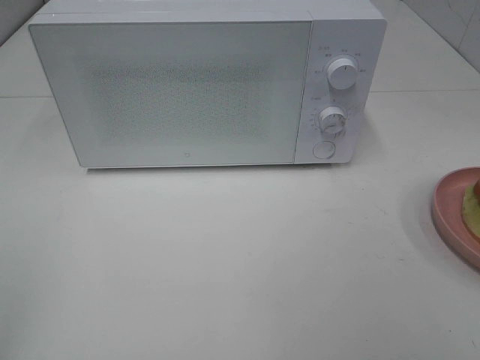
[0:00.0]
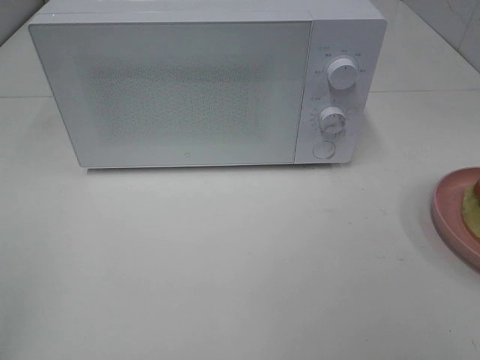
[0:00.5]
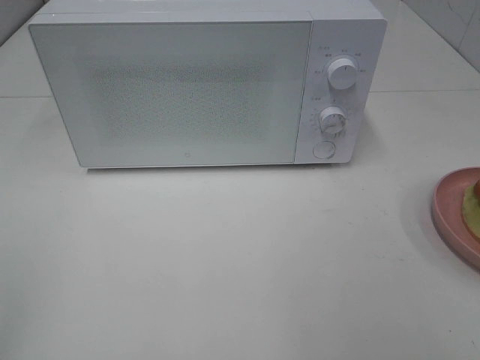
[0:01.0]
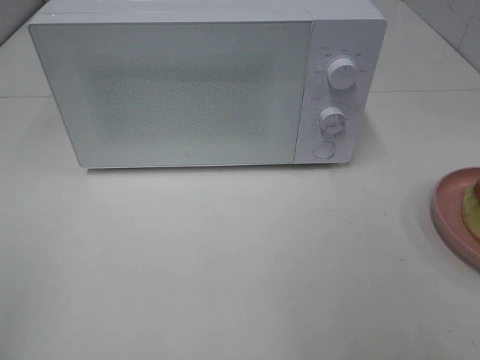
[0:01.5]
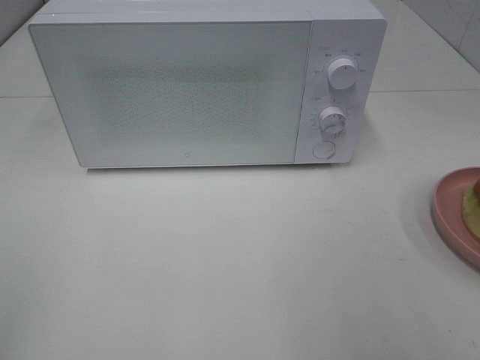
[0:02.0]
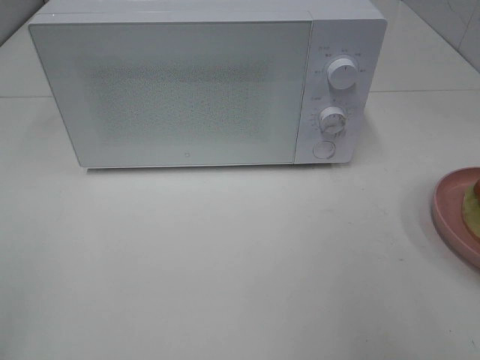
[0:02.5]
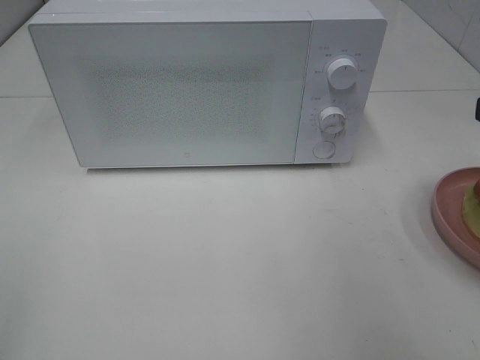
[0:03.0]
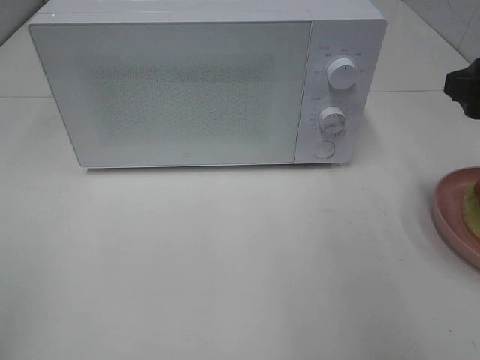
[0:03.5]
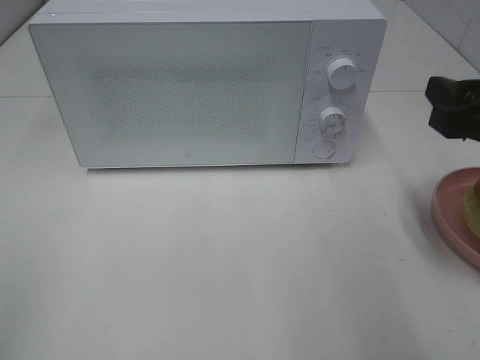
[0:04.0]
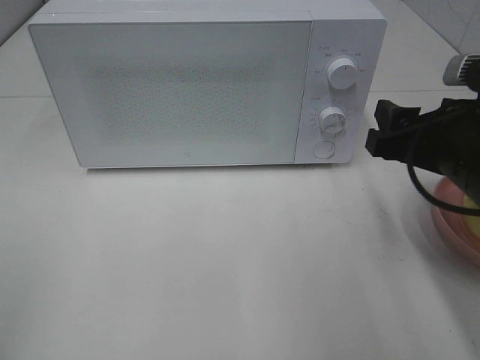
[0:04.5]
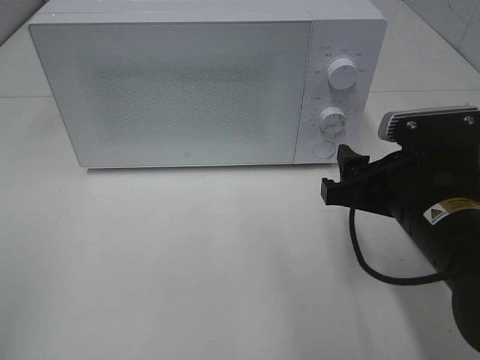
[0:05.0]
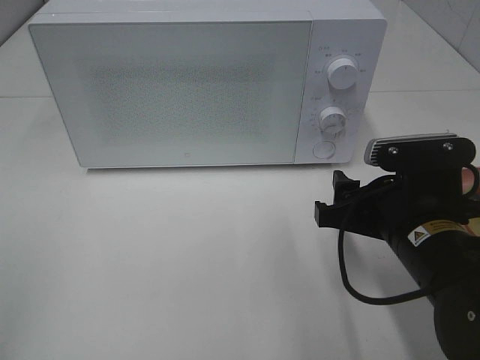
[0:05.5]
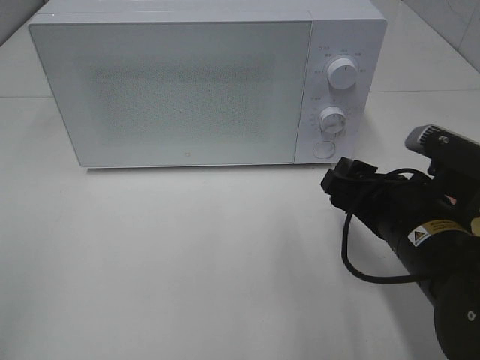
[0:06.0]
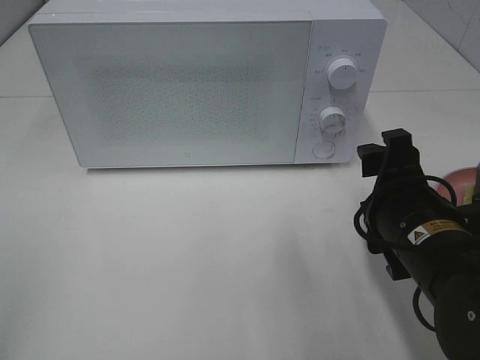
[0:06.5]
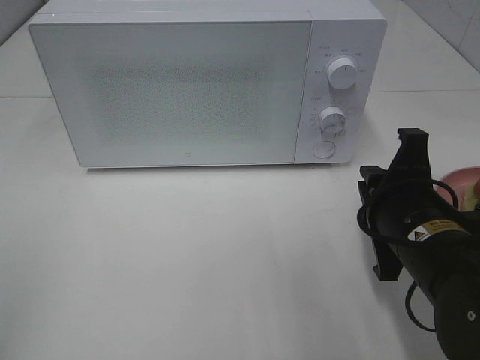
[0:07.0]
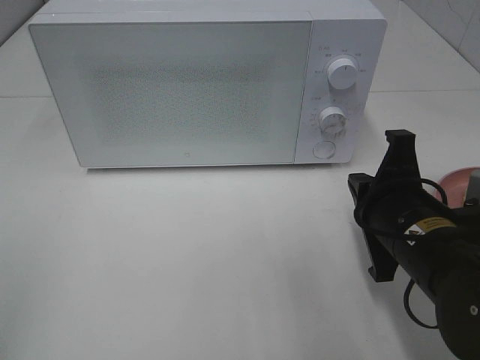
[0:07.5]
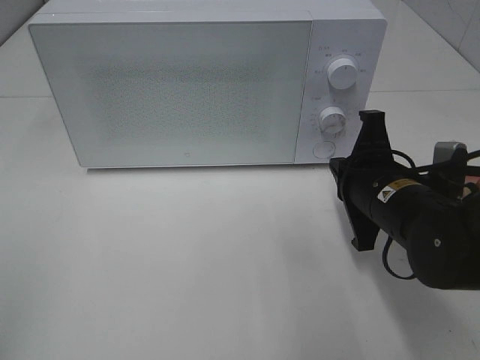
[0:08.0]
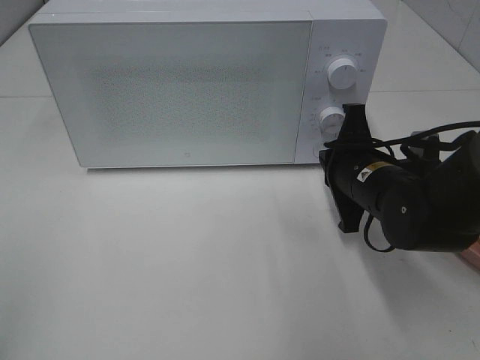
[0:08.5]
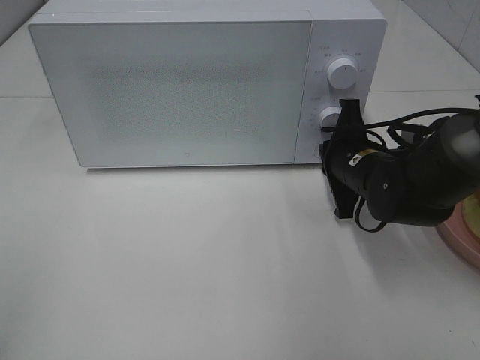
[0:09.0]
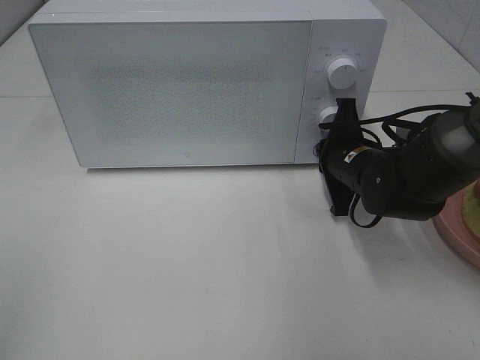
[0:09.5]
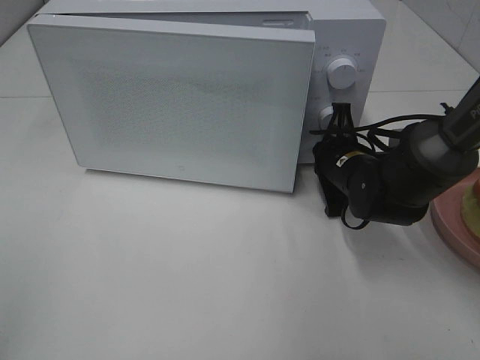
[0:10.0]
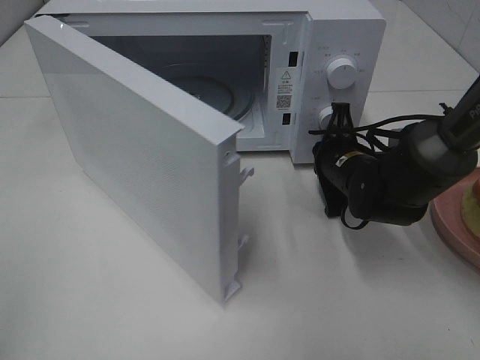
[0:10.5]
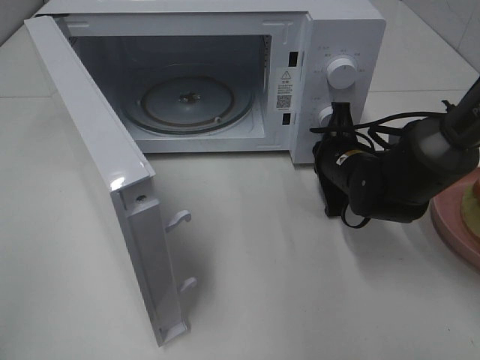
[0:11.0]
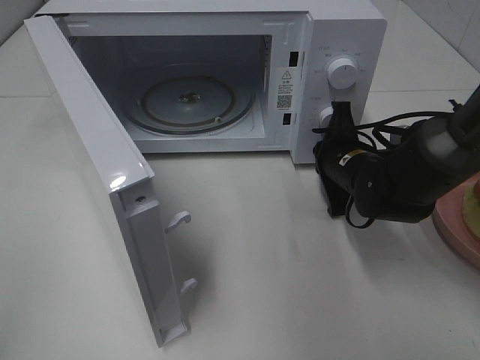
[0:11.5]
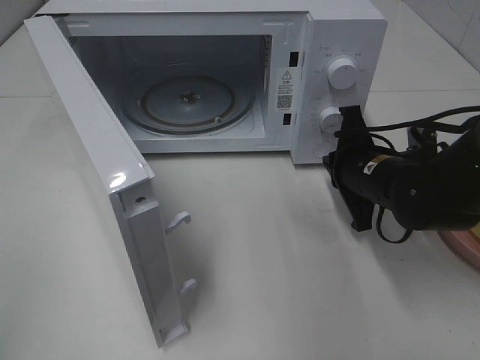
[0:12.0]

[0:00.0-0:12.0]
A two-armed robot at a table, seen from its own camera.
Task of the whole recording: Heat Sandwich.
Step, 0.0 to 11.5 s: Right hand: press the switch.
2.0 to 4.0 s: The right gripper is displaced forward and downward by about 15 cm.
4.0 to 6.0 s: The right gripper heads to the left and downward, covering some 15 cm.
6.0 to 8.0 s: The right gripper travels forward by some 5 cm, and closes its fingers.
8.0 to 10.0 s: The right gripper shifts roughly 10 cm forward.
10.0 to 12.0 s: The right gripper ends up some 5 cm from where it was.

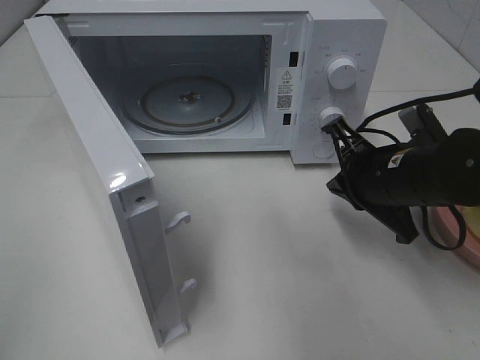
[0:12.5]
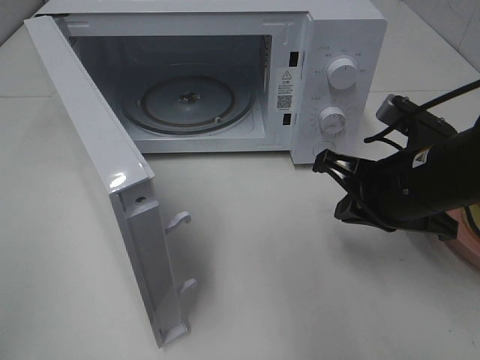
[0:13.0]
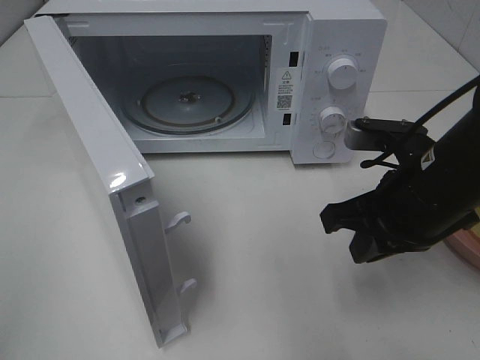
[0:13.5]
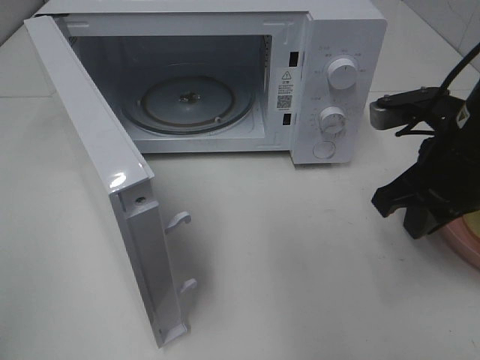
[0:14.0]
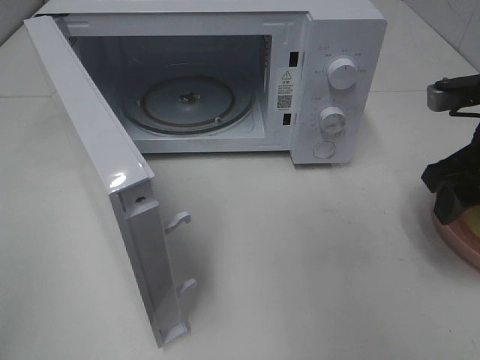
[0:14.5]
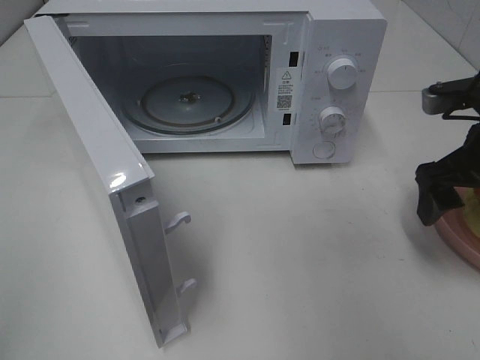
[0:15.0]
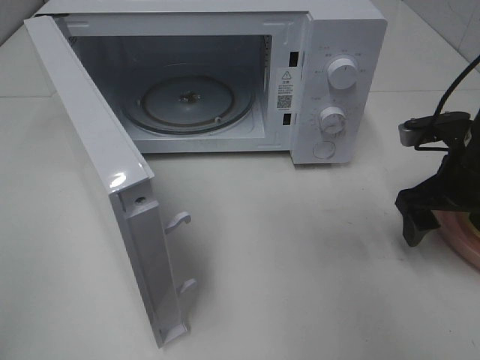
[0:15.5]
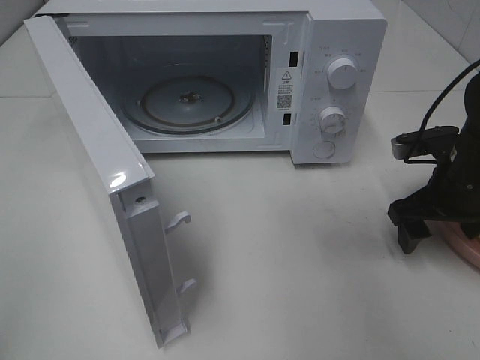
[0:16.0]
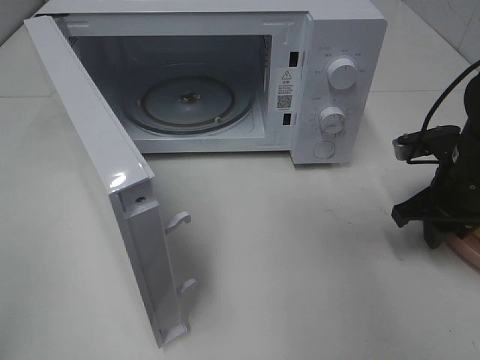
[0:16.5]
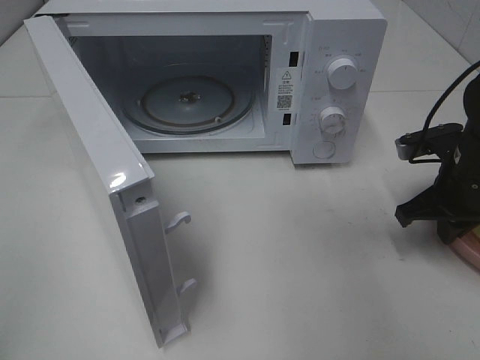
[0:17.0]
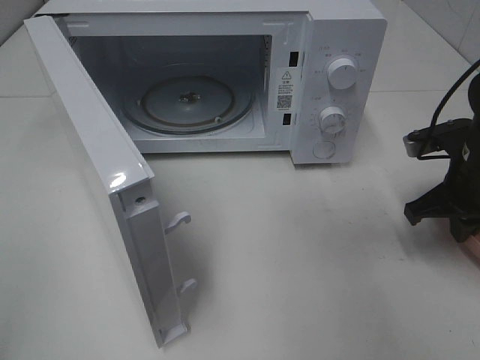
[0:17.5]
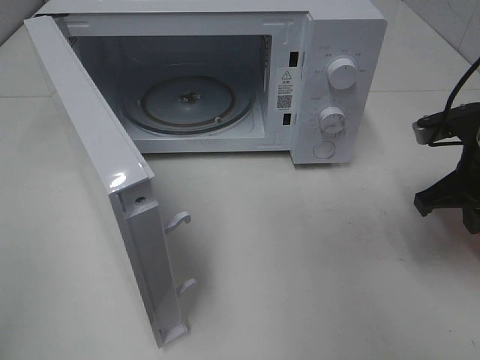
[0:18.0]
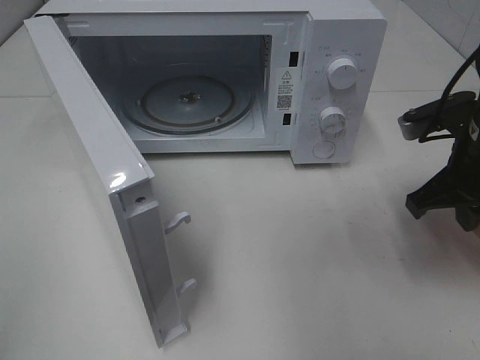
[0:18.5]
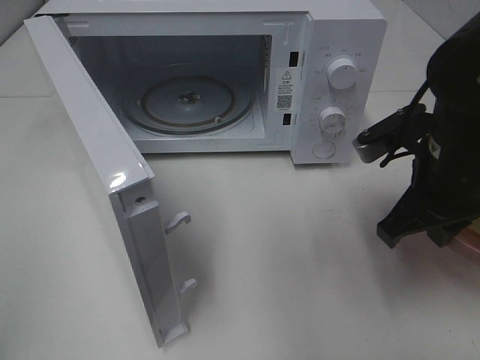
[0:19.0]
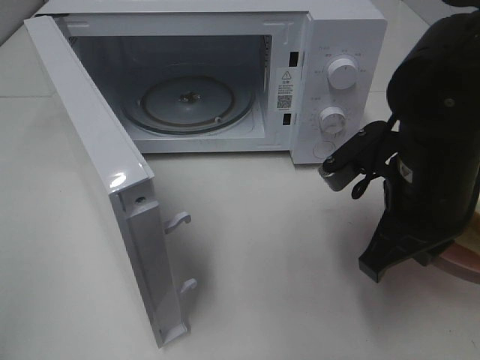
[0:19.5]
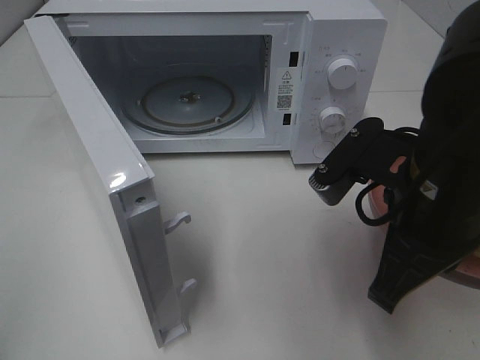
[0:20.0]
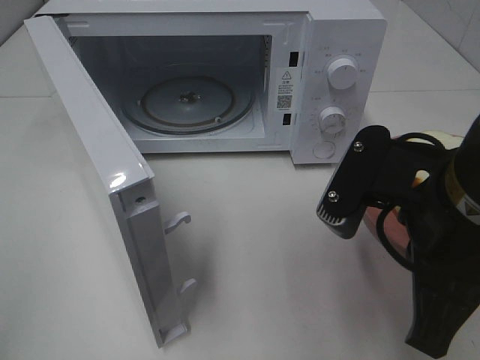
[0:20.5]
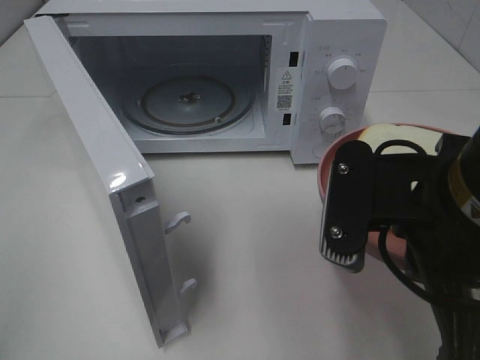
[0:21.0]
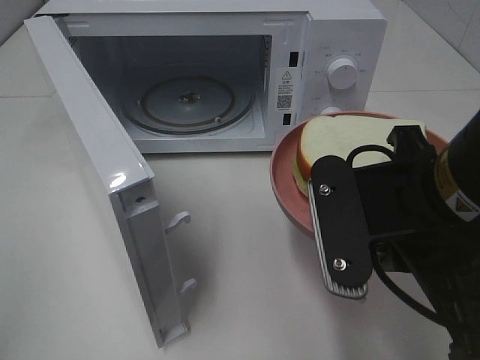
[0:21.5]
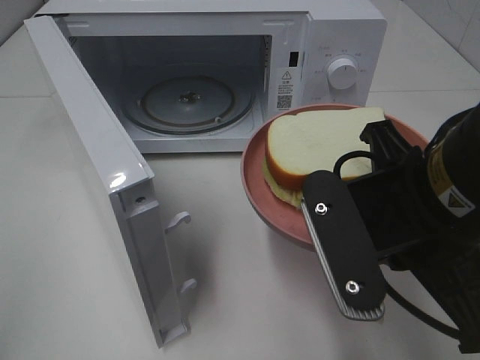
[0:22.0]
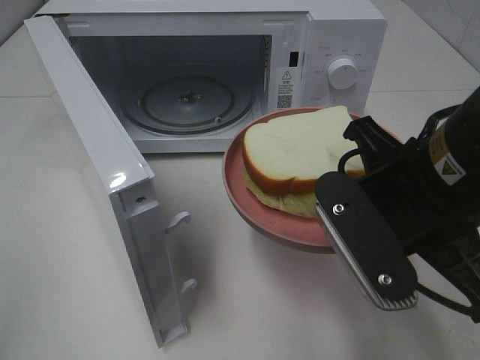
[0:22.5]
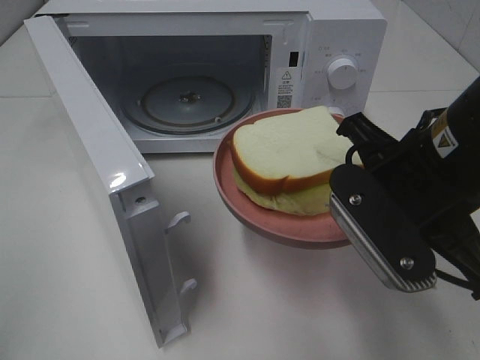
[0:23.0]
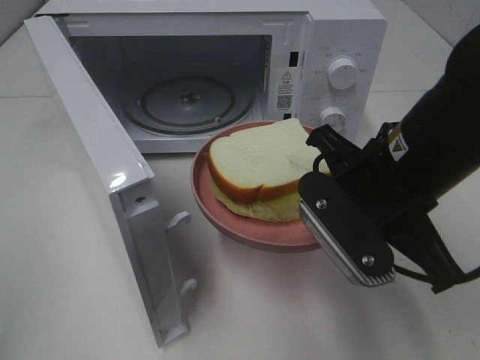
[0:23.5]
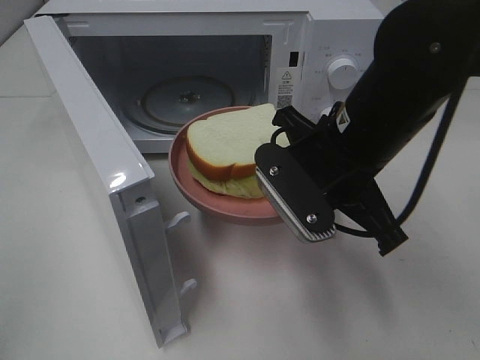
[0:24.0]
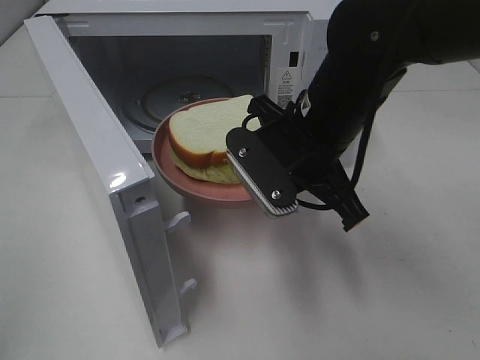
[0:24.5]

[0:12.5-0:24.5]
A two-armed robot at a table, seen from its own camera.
Task of the whole recording: Heat Sandwich.
Step, 12.5 to 17.0 s: Right hand: grab the plate with the sandwich.
12.5 to 14.5 s: The right gripper travels to the right and upward by some 10 cm, and opens.
14.5 to 16.5 s: The right gripper moves downward, approximately 10 cm, and closes its fingers.
16.5 to 18.5 s: The right gripper goes approximately 5 cm upward.
18.5 to 20.5 s: The right gripper goes some 15 cm backward and to the left.
22.5 to 24.5 s: The right gripper goes some 10 cm forward and to the left.

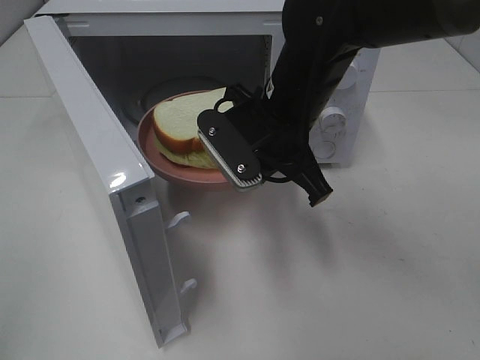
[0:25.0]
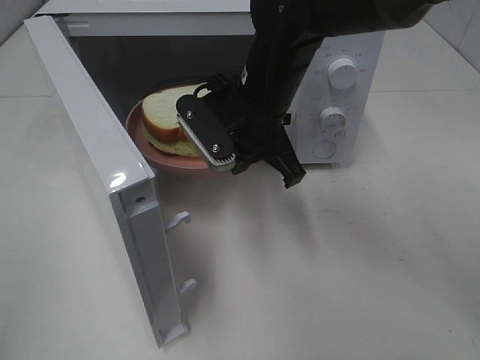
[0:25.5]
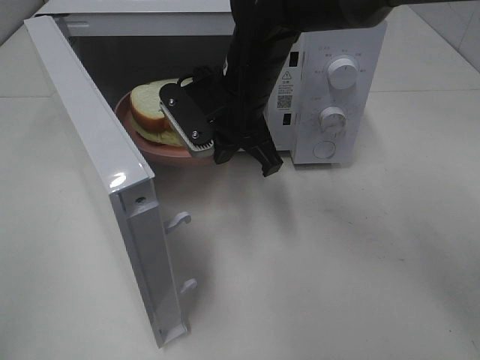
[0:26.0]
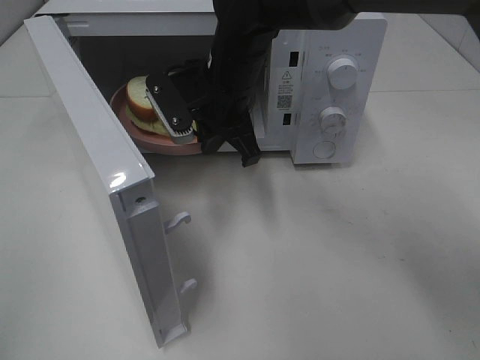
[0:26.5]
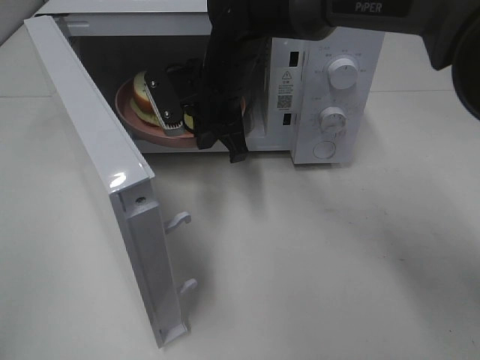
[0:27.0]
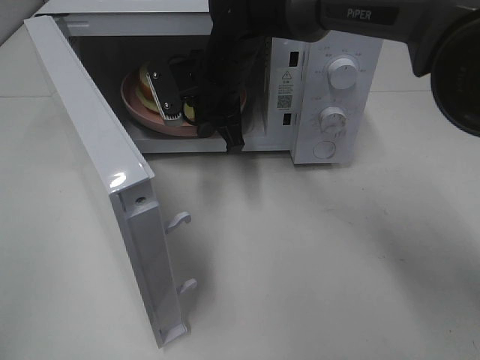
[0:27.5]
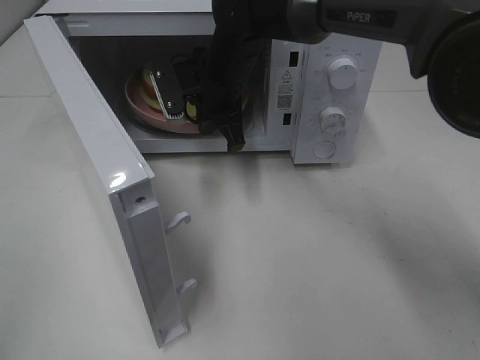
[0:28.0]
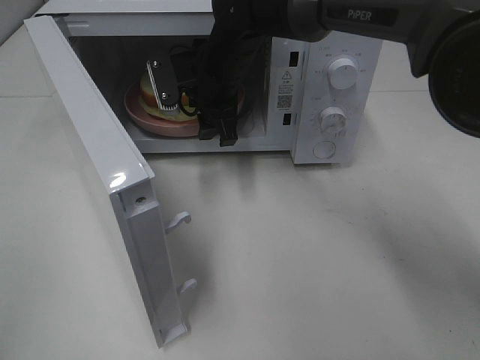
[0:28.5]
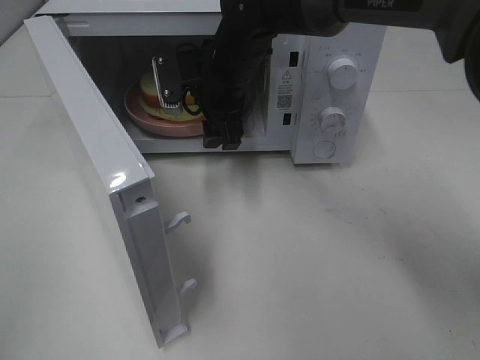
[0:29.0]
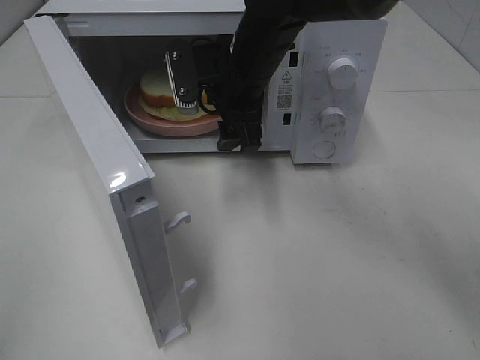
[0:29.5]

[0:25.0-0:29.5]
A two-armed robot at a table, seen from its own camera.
Task of the whole recording: Heat Sandwich.
Step, 25.0 to 29.0 s: Right hand: place the plate in the microwave.
25.0 to 27.0 s: The right gripper moves forward and to the left, approximately 10 cm.
27.0 to 29.5 s: The right gripper opens.
